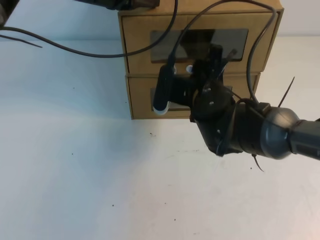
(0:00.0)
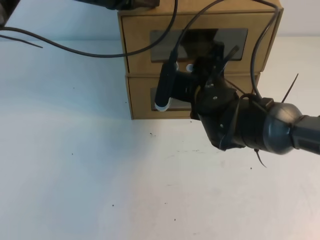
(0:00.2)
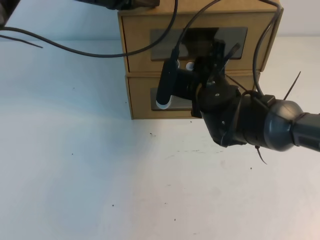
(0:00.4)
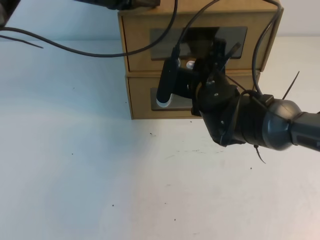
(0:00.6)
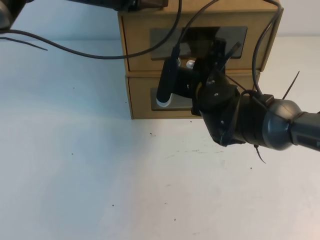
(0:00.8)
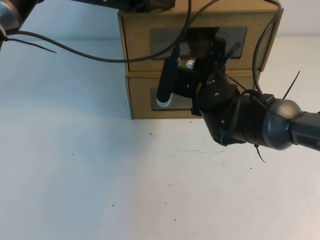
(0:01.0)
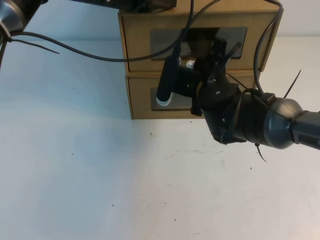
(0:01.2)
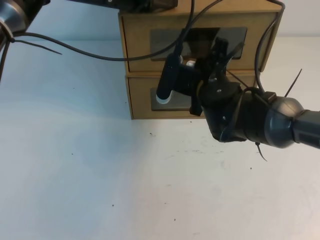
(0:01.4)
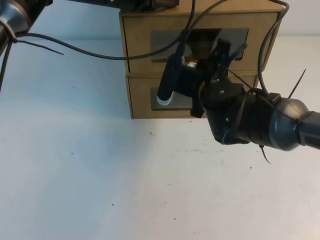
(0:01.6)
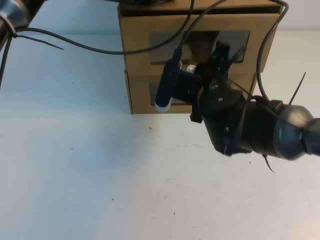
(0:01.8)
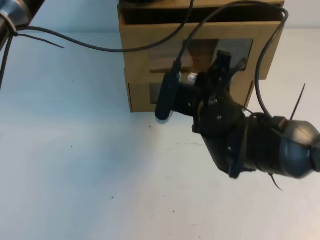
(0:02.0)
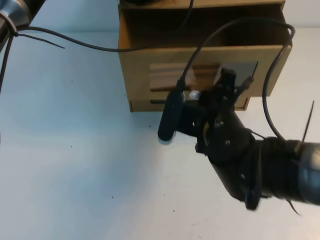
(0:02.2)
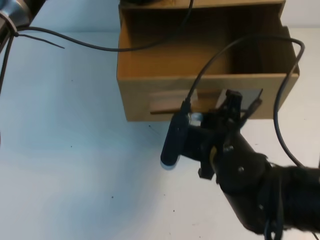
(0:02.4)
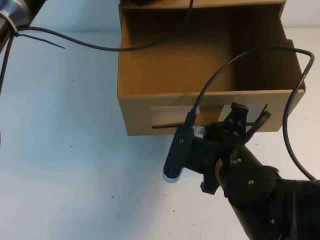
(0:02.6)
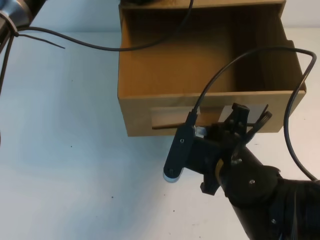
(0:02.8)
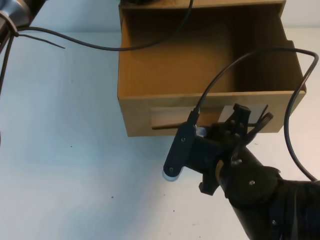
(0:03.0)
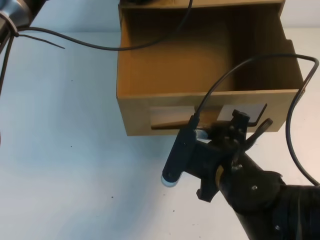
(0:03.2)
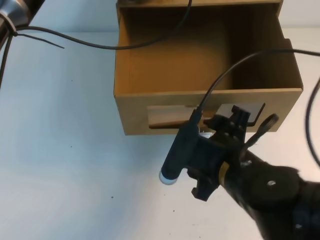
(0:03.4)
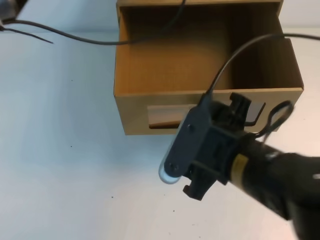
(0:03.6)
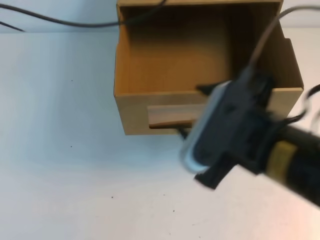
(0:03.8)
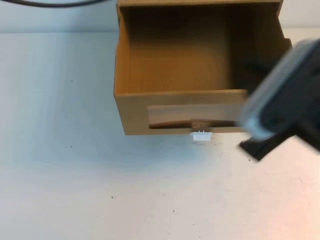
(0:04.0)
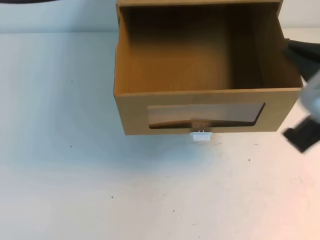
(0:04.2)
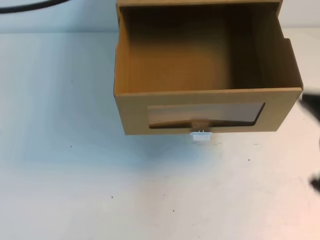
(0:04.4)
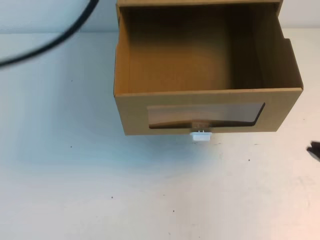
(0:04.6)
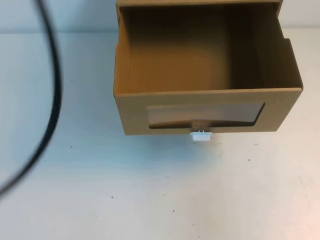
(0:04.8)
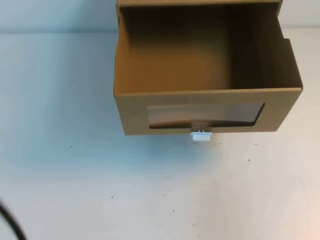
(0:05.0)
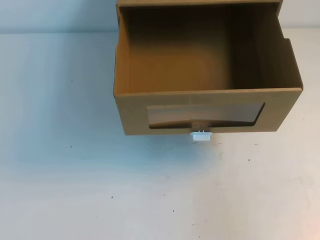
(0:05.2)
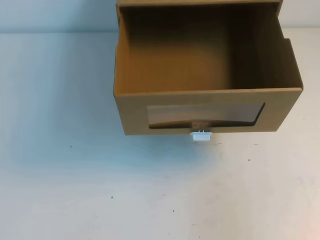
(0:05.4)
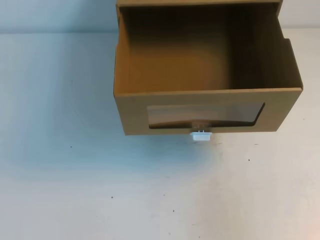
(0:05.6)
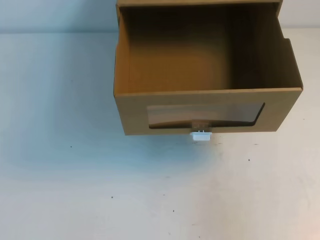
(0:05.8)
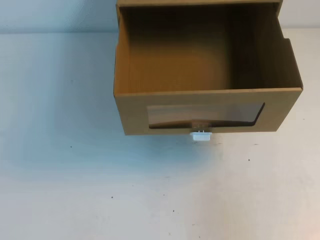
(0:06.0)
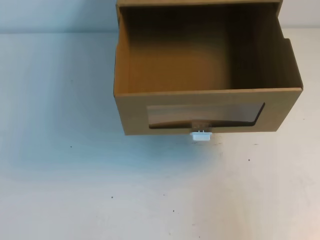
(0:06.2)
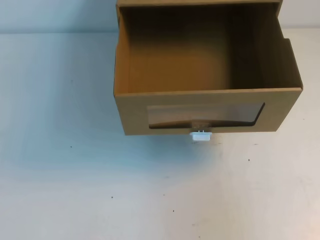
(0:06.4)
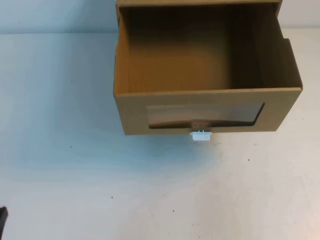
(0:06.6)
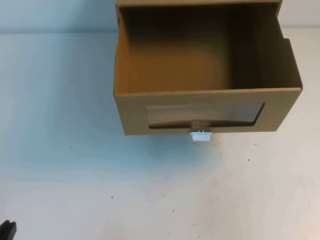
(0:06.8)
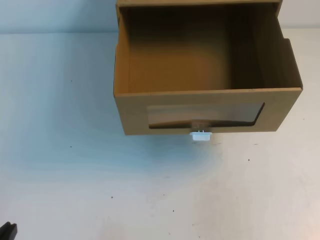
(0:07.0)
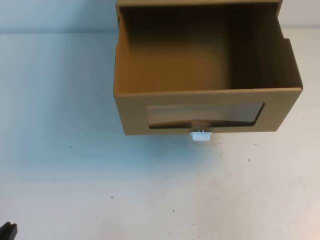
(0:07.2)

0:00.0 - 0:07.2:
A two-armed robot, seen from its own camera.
Task of the whole recording: open the shoebox on the table.
Step, 0:00.0 - 0:07.2: Open the shoe box.
0:00.0 - 0:01.4: The right gripper closes.
0:01.4 - 0:02.8: The right gripper heads backward, covering some 15 cm.
0:02.8 - 0:04.4: The left gripper is displaced backward, upward and to the left by roughly 30 cm. Meanwhile the right gripper moves upward, to the right and backward, about 20 cm, and opens, then closes again.
0:04.4 - 0:05.8: The left gripper shifts about 30 cm downward, backward and to the left; the right gripper goes about 10 cm to the right and downward.

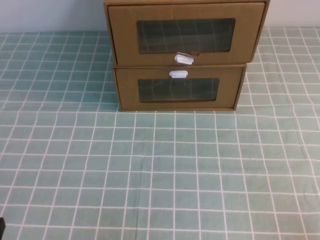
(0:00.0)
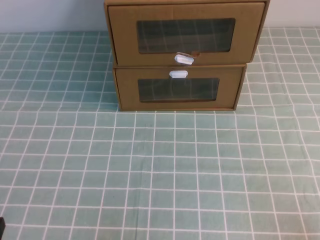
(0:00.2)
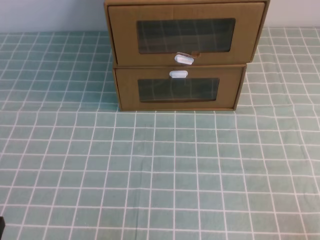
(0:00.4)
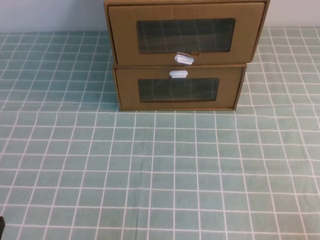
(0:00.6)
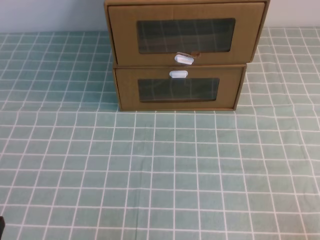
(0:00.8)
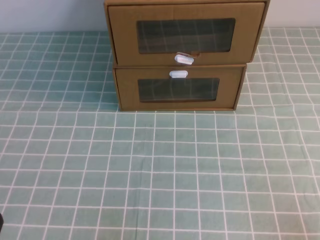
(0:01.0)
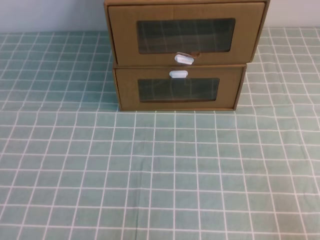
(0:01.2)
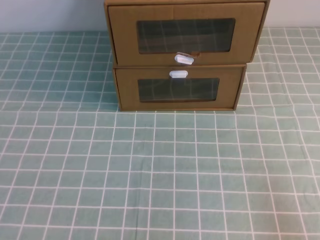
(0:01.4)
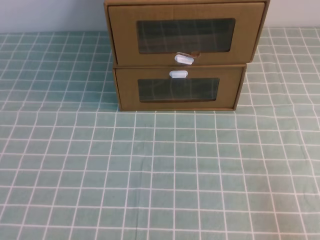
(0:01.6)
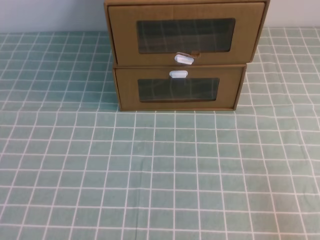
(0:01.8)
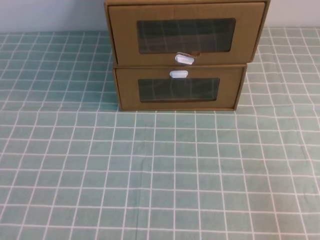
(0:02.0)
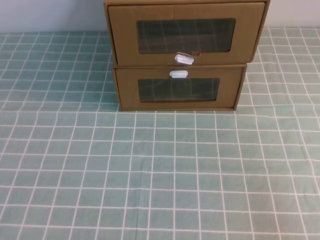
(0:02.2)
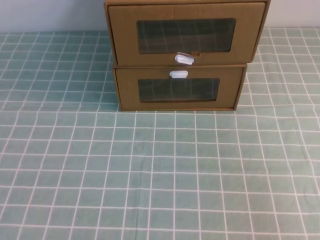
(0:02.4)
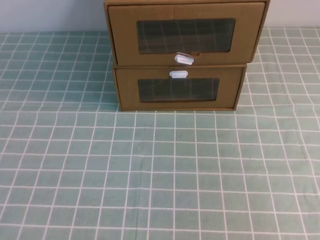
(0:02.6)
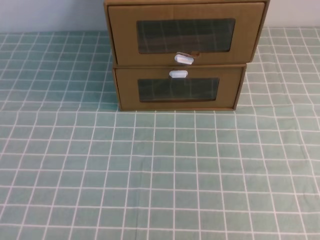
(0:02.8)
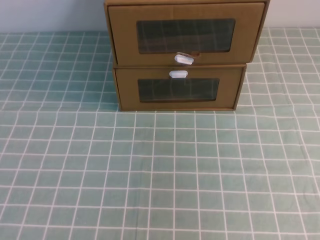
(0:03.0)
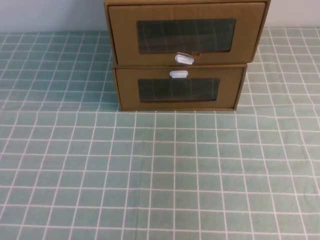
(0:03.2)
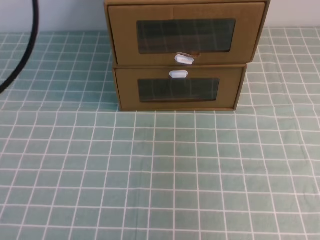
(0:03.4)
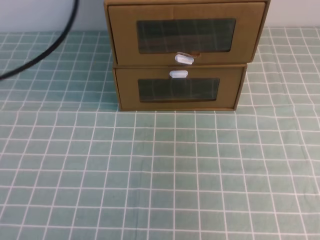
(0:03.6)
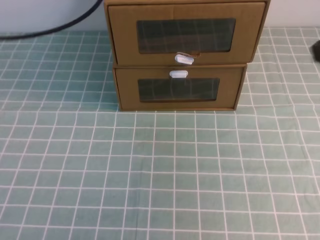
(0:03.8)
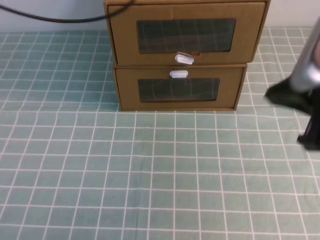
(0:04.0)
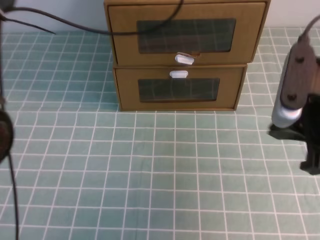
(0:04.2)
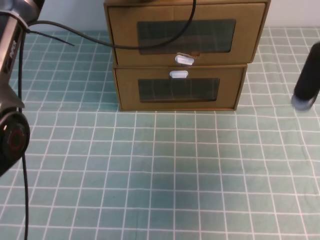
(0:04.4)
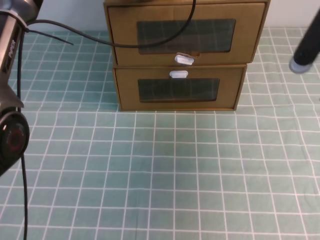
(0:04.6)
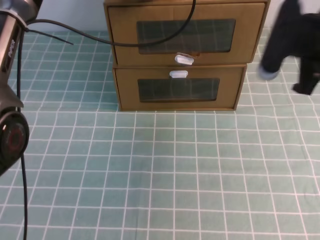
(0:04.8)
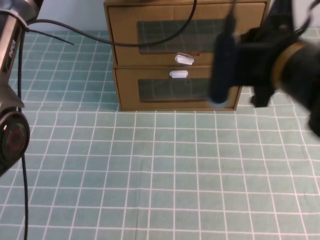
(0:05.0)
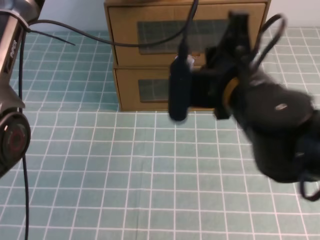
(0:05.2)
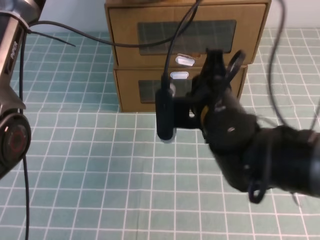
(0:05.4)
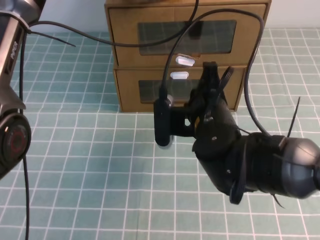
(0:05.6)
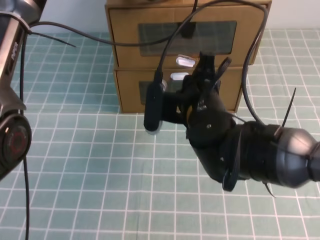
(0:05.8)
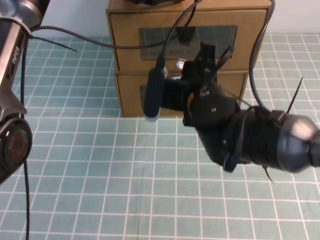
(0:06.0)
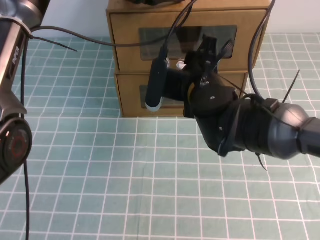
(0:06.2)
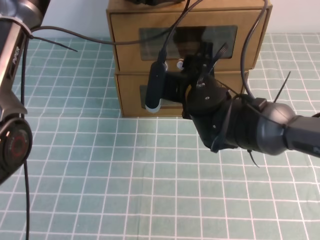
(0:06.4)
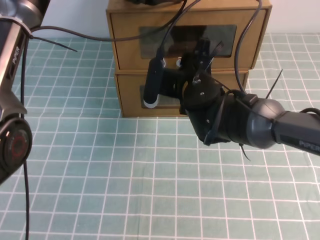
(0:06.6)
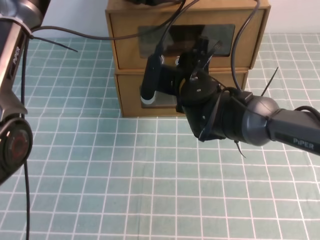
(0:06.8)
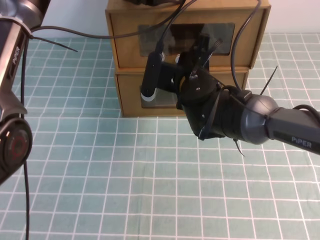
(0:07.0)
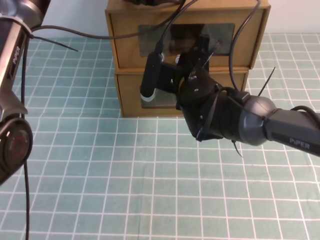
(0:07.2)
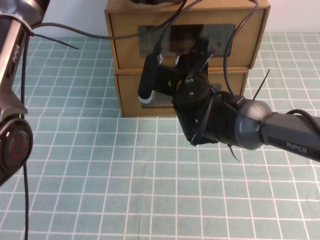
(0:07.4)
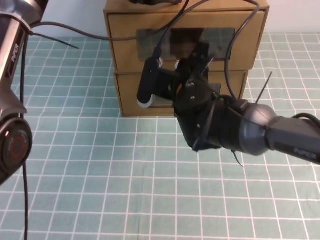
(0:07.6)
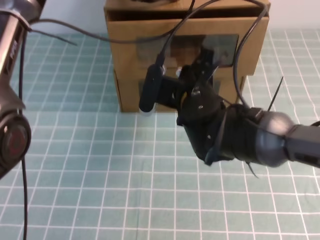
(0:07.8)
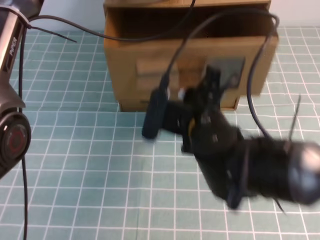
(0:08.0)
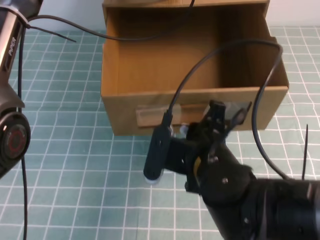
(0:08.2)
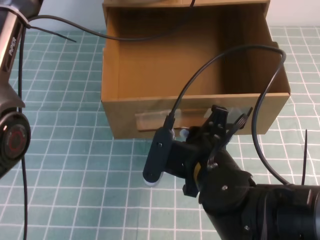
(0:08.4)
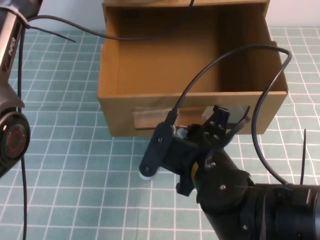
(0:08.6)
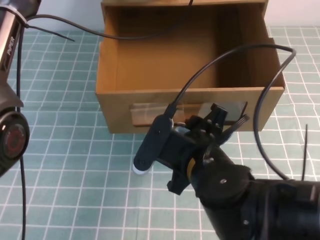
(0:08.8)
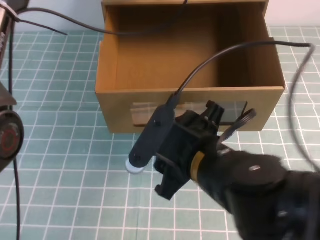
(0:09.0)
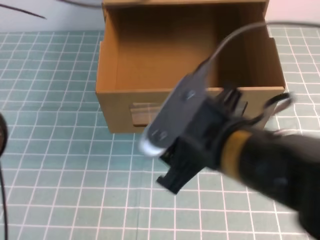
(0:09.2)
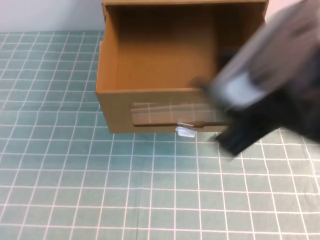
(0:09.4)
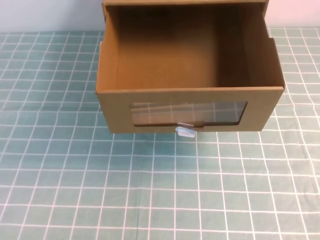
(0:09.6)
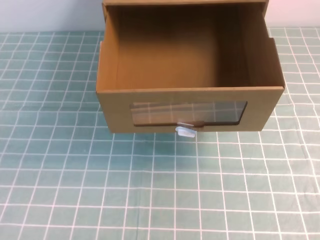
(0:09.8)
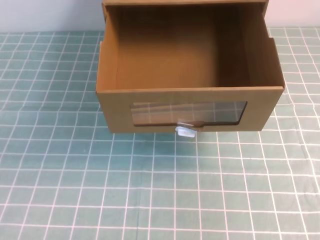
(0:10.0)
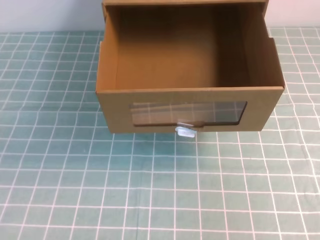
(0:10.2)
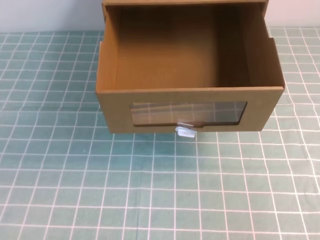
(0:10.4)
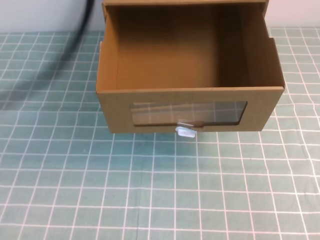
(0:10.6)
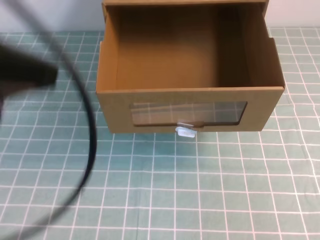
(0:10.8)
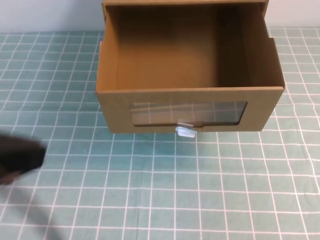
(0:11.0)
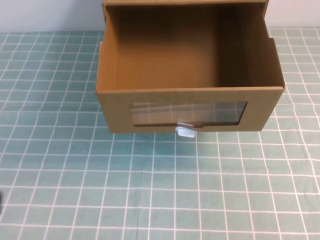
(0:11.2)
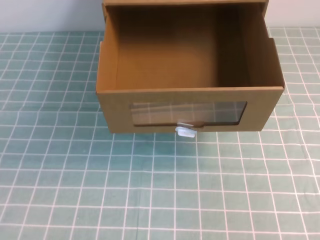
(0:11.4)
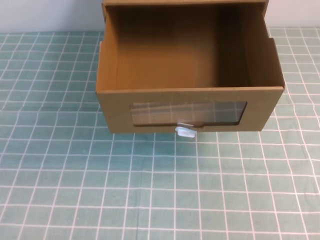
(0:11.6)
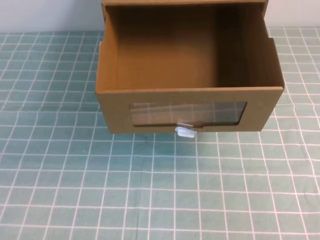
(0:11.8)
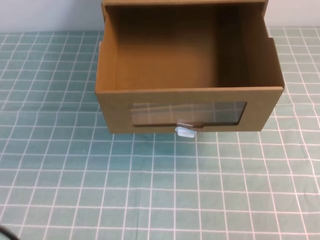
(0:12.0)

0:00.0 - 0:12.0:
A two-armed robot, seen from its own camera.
Task of the whole recording: open the shoebox on the cyan tablecloth.
0:01.6 - 0:03.0: The right gripper is displaced upward by approximately 25 cm.
0:03.0 - 0:04.4: The left gripper goes roughly 40 cm forward and to the right. The right gripper heads forward, downward and to the left, covering about 25 cm.
0:04.4 - 0:06.0: The right gripper travels to the left by about 20 cm, and opens up.
0:07.6 - 0:09.0: The right gripper heads backward, covering roughly 15 cm, and opens up.
0:09.0 - 0:10.4: The right gripper goes approximately 30 cm to the right and backward, and closes up. The left gripper shifts about 30 cm backward and upward.

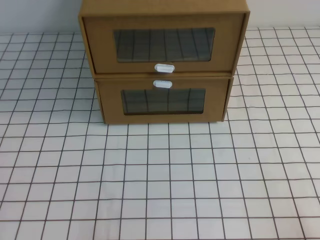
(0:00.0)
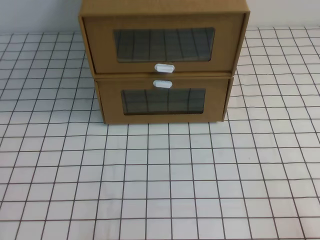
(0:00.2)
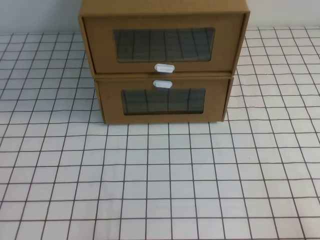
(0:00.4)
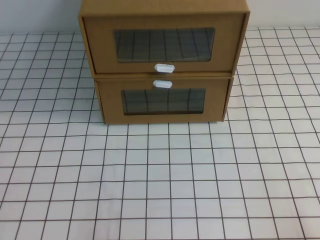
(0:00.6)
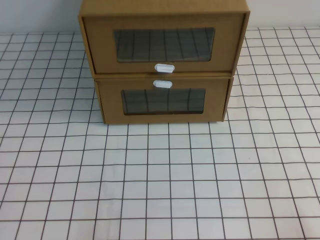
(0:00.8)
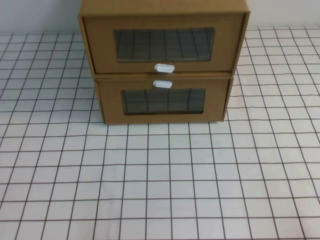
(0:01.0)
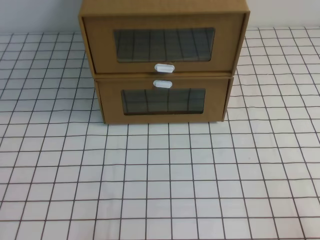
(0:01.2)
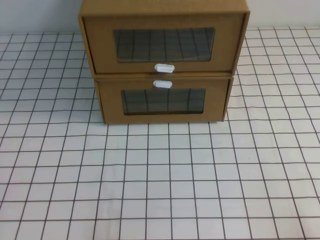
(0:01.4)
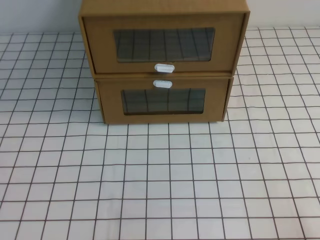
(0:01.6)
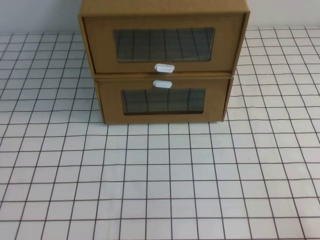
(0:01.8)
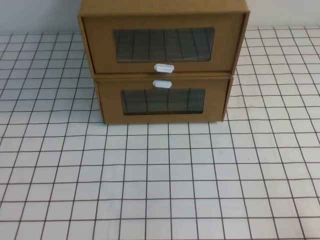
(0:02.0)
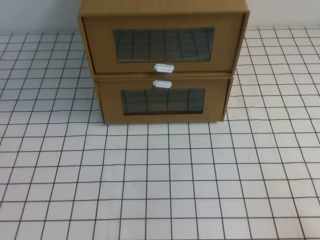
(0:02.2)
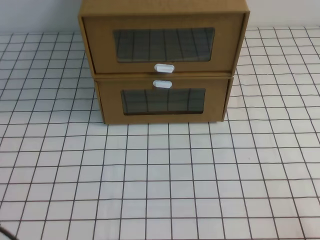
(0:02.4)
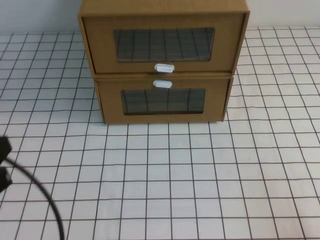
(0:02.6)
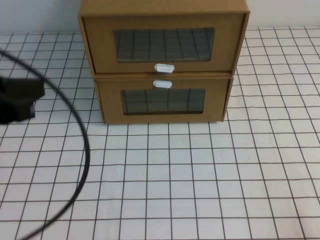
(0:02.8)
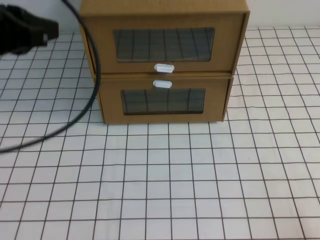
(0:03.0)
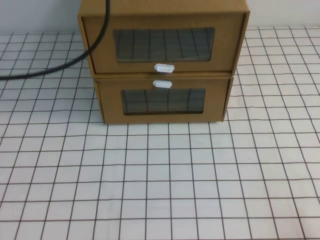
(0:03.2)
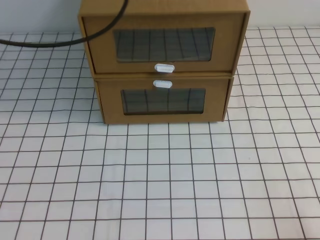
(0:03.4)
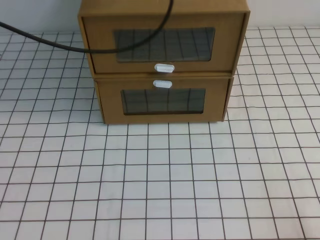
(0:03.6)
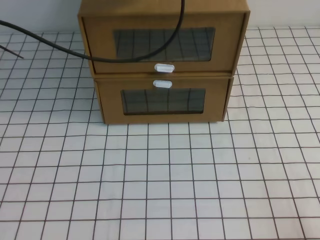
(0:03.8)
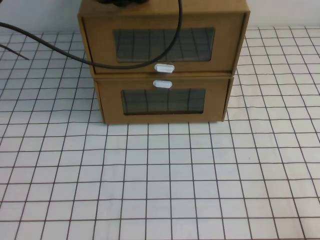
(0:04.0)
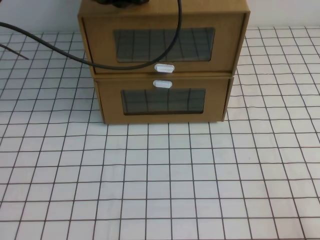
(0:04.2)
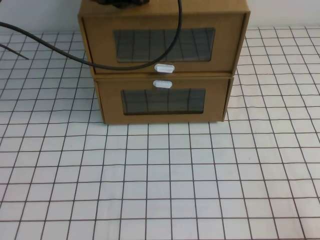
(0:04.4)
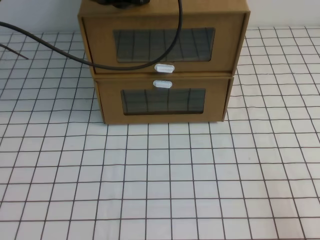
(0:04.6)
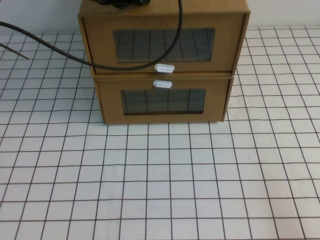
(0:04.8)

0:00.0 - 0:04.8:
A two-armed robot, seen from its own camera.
Task of the whole recording: open the shoebox on the white tablecloth.
0:01.6 - 0:03.2: The left gripper is displaced upward and forward by approximately 35 cm.
0:03.2 - 0:04.8: The left gripper shifts about 15 cm forward and to the right.
